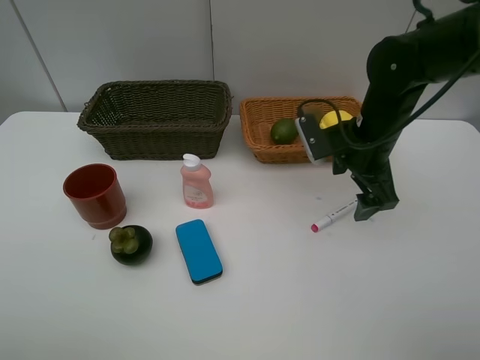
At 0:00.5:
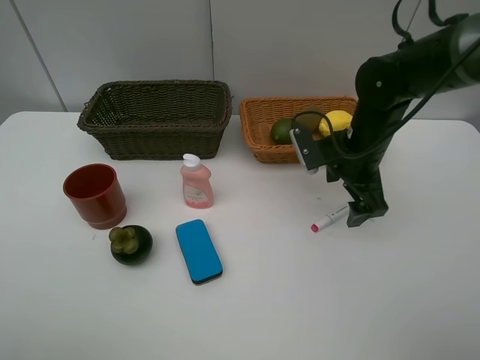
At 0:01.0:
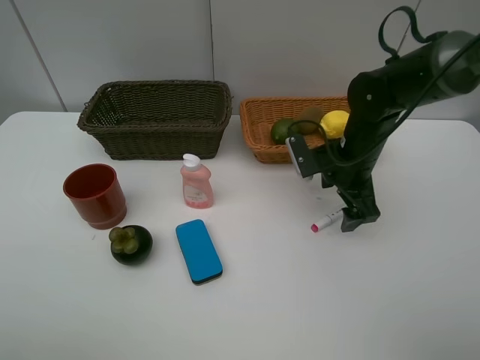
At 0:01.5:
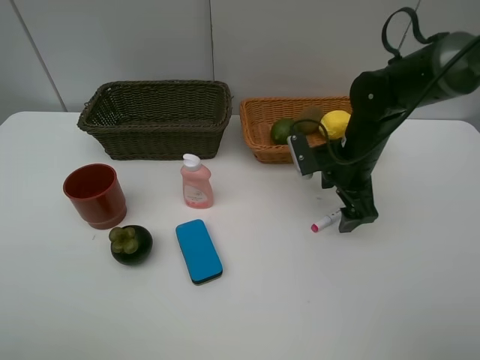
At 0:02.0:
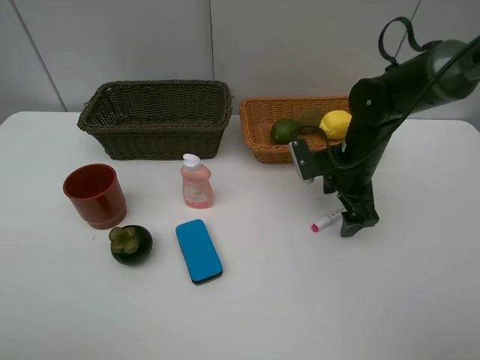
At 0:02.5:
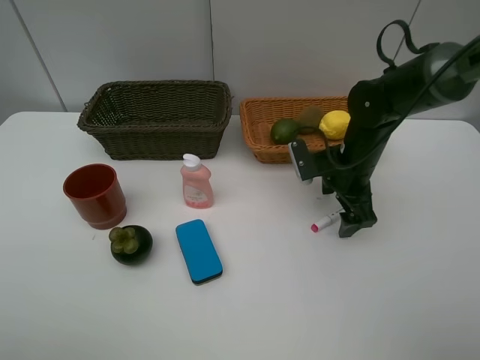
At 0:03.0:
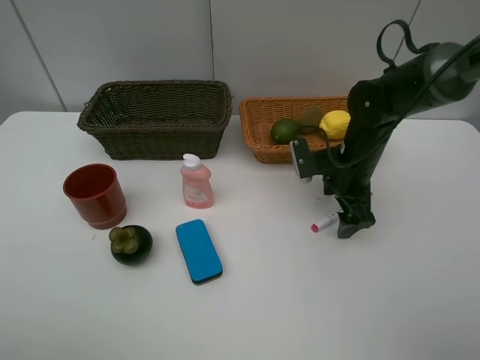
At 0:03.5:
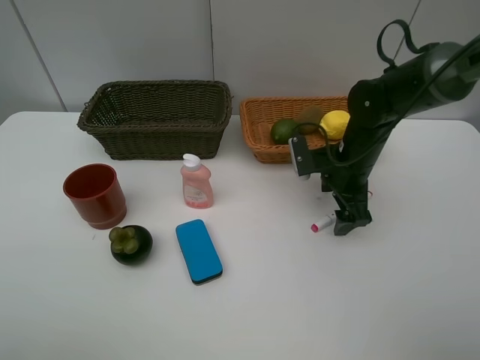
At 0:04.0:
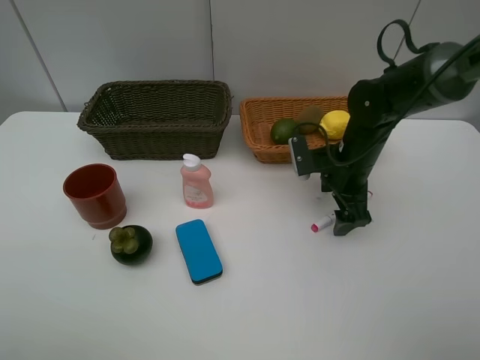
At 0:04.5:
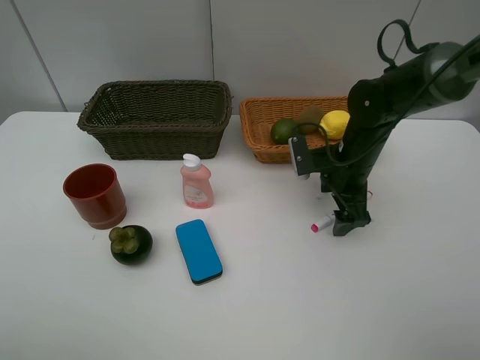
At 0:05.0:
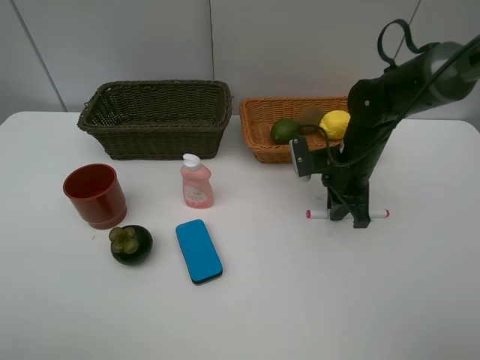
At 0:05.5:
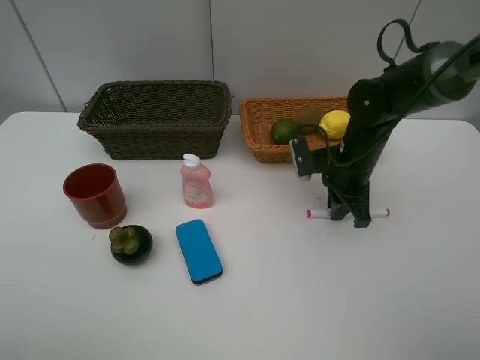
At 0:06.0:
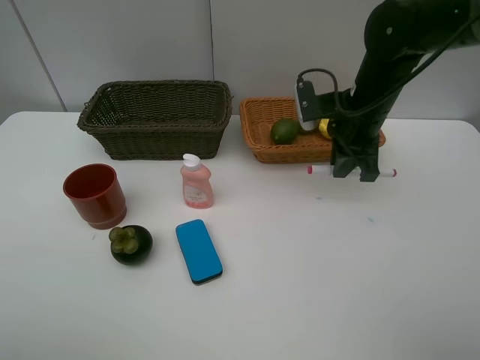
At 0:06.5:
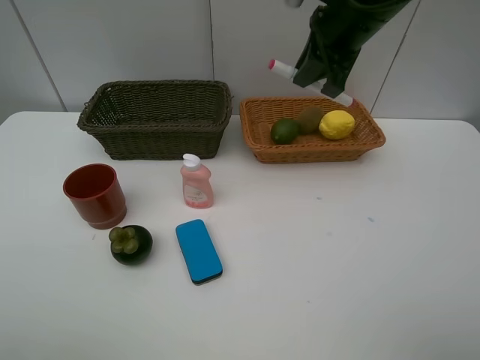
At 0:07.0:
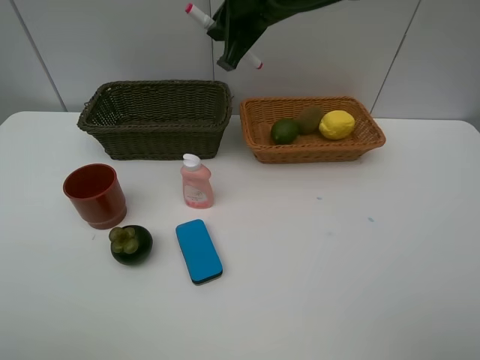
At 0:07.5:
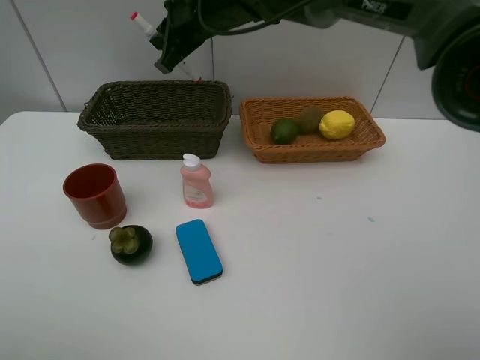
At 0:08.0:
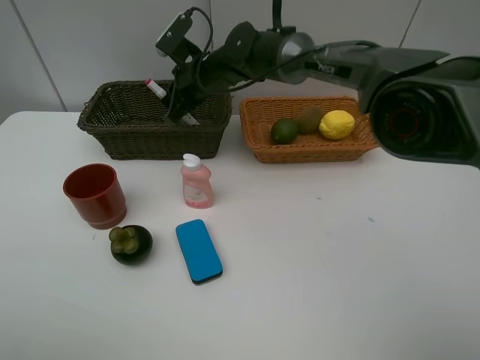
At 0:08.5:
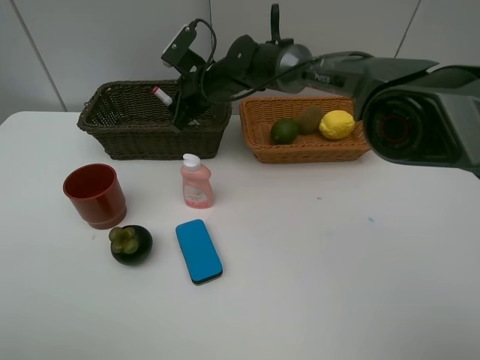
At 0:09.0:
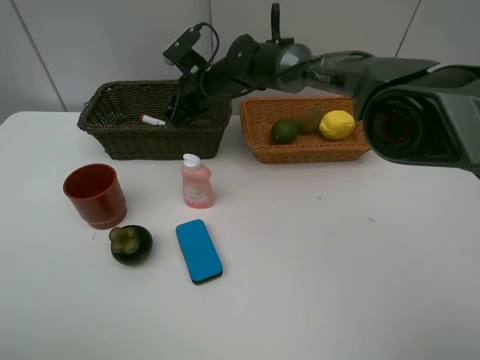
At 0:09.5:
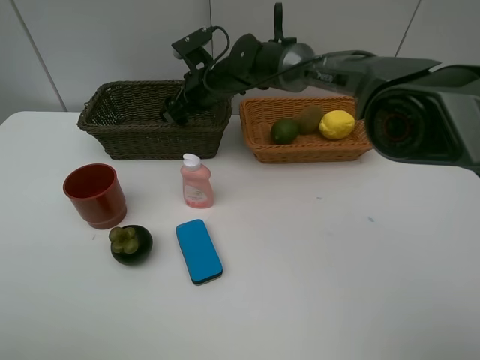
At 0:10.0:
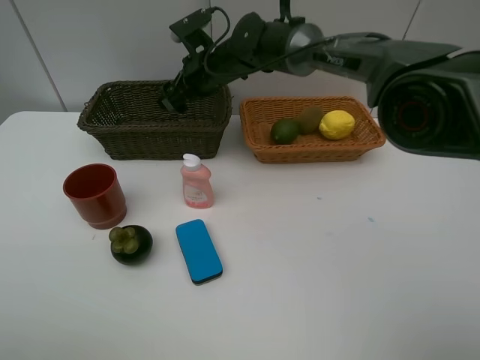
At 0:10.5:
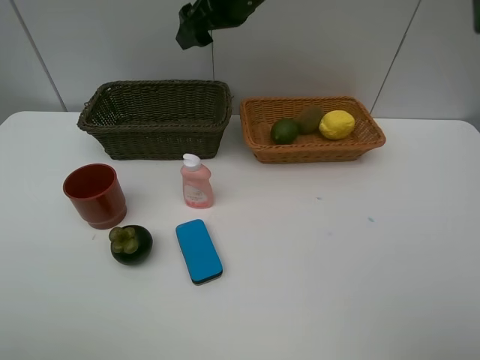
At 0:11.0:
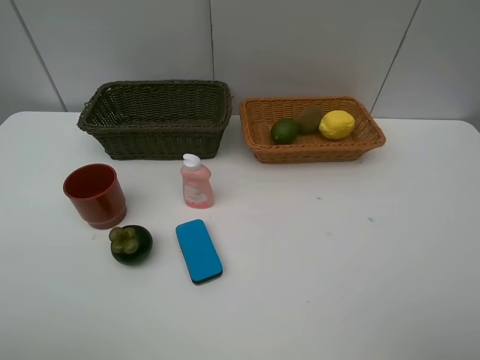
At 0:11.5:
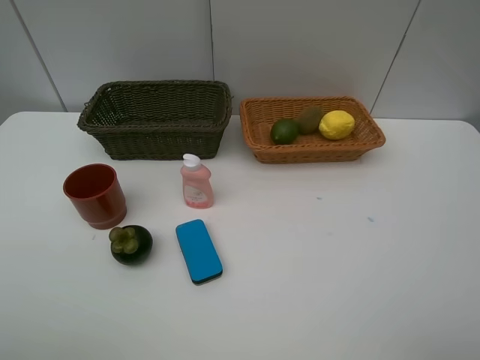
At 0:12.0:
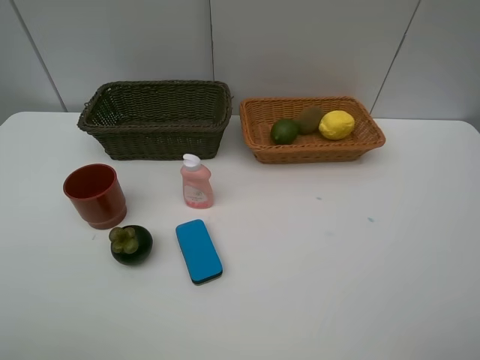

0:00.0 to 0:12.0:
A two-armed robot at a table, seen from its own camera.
Task of the whole recording: Place multiple objects separately in different baskets.
Step, 0:00.0 to 0:05.5: Pick up the red marker with right gripper.
Step, 0:06.0 to 0:09.5: Place the red marker in the dark basket with right gripper.
0:00.0 to 0:02.0: The right gripper heads downward, covering about 5 cm.
0:02.0 to 0:04.0: The grippers make only small movements.
0:04.0 to 0:06.0: The right gripper heads upward, covering approximately 10 cm, and closes up.
0:06.0 to 0:08.0: The right gripper shifts approximately 25 cm to the left and forward.
0:08.0 to 0:10.0: The right gripper opens up.
0:10.0 to 0:12.0: The right gripper moves backward, to the right and upward, approximately 50 cm.

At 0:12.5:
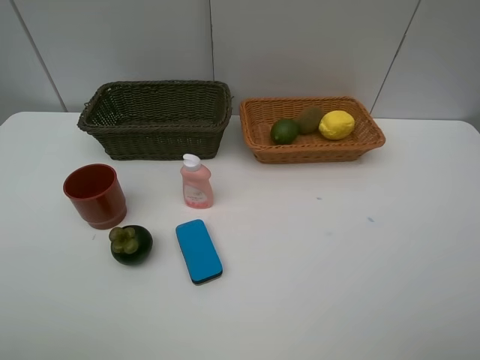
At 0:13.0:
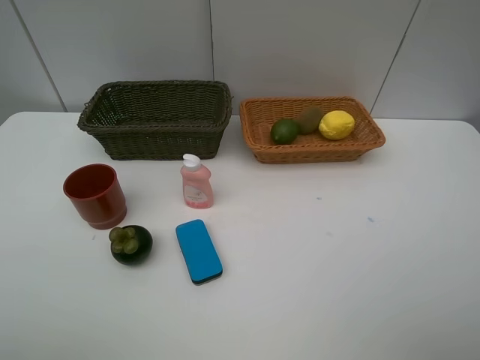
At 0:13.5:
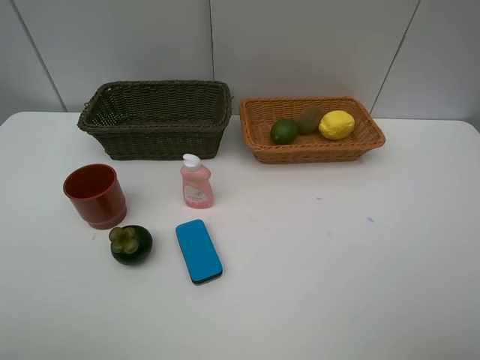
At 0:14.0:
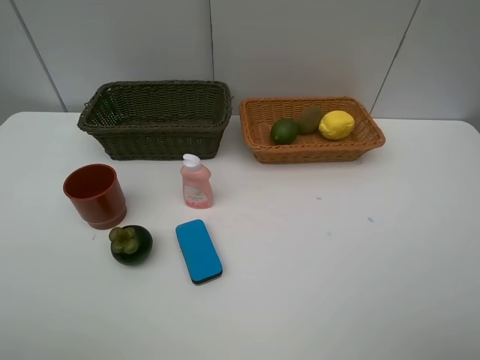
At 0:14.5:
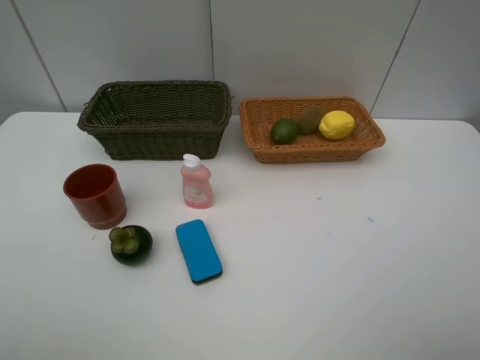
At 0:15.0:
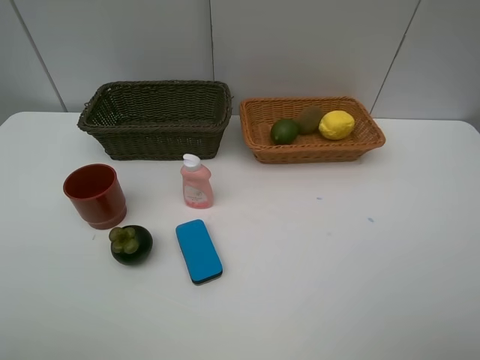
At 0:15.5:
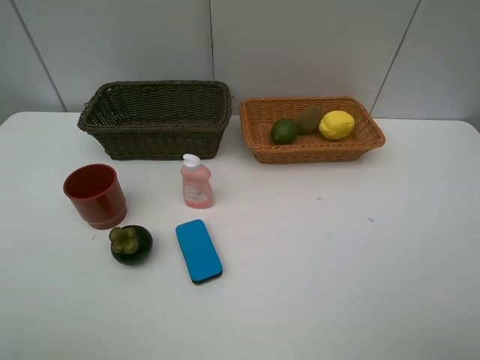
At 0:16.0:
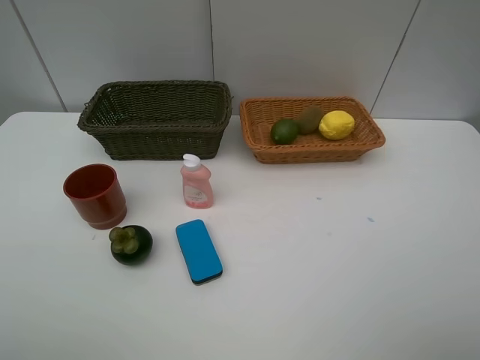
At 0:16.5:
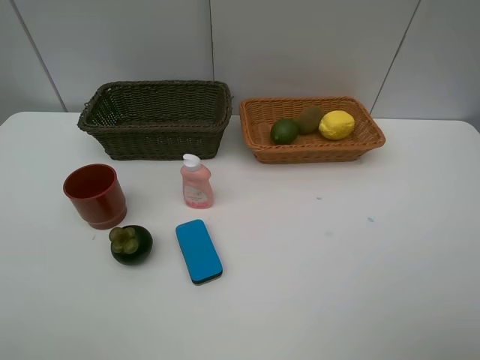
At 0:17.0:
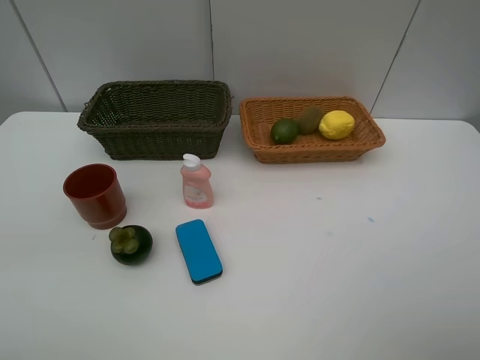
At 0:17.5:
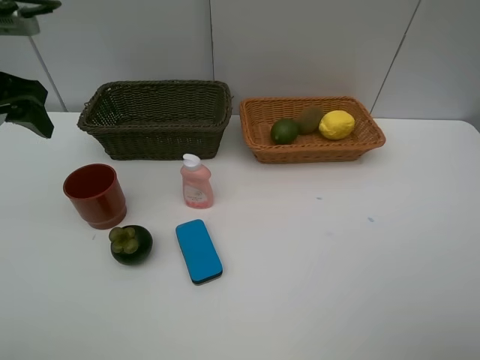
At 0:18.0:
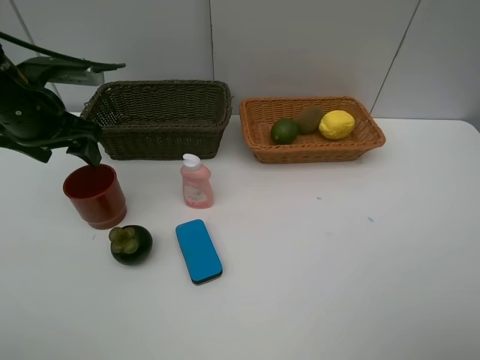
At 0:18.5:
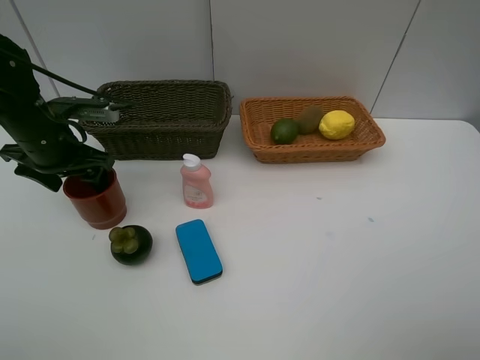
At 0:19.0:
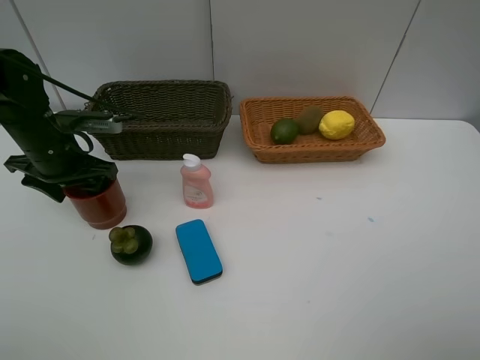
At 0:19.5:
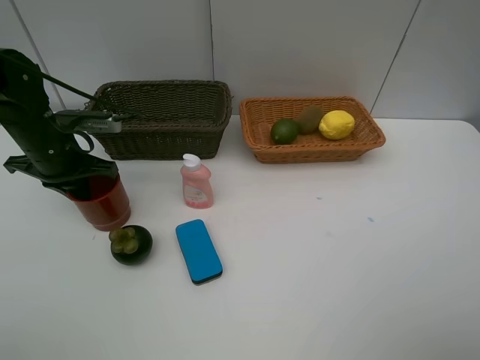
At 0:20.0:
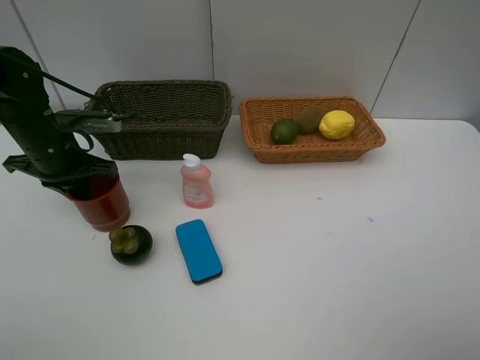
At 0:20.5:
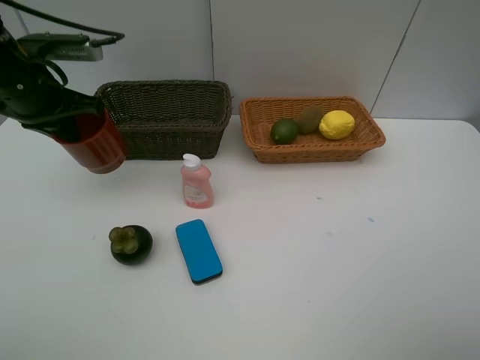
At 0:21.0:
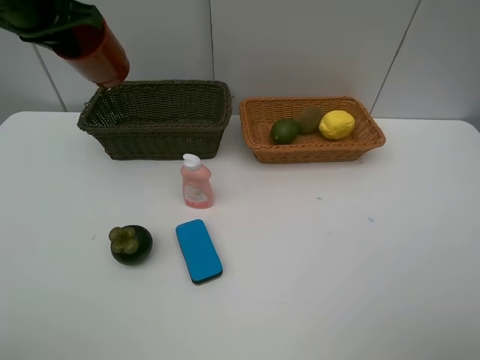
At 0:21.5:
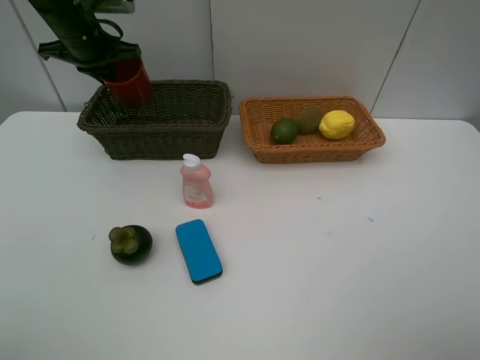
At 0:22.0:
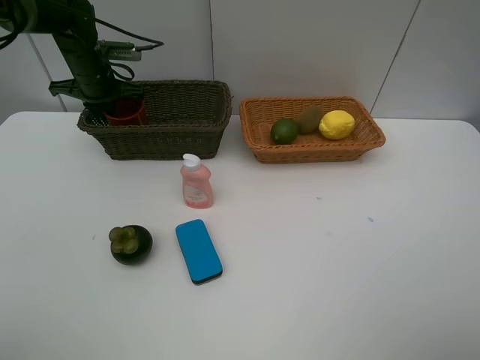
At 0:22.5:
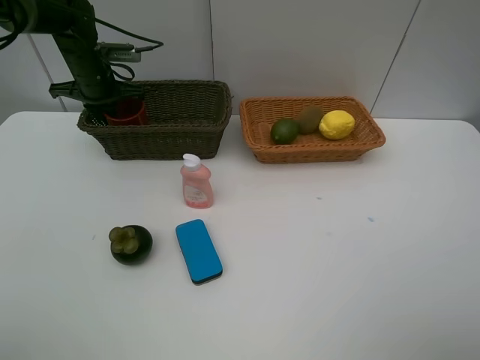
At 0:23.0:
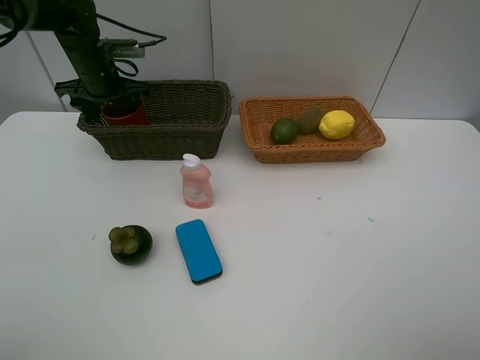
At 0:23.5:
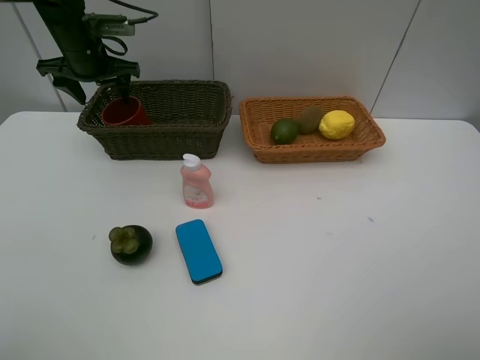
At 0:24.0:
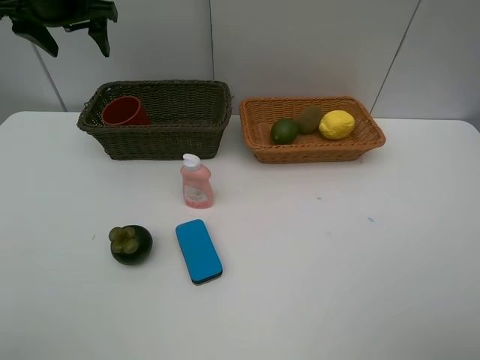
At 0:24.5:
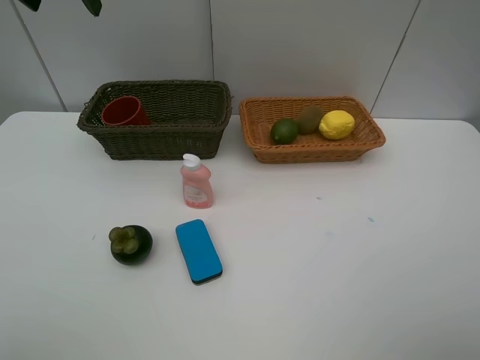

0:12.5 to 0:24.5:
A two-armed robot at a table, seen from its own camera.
Task of the whole recording: Place multiple objects separately in different baskets.
Step, 0:12.5 to 0:20.0: Pick up the dark brown cup with left gripper.
Step, 0:20.5 to 0:23.5: Place the dark brown cup in the dark basket with left gripper.
0:16.5 to 0:18.5: The left gripper is displaced forward and downward by some 35 cm.
0:18.5 to 0:20.5: The left gripper moves upward, roughly 10 cm, and closes its fingers.
0:20.5 to 0:22.5: The left gripper moves forward and downward, approximately 20 cm.
0:22.5 to 0:24.5: The left gripper goes approximately 25 cm upward and backward, and opens.

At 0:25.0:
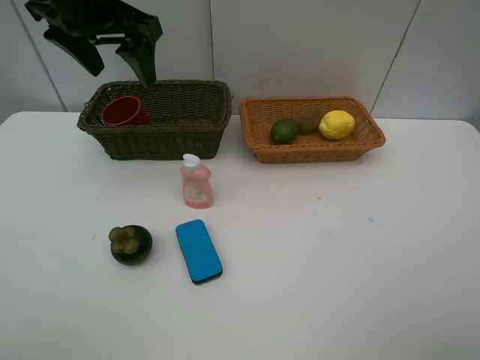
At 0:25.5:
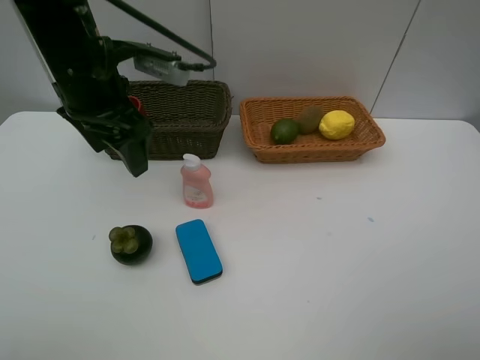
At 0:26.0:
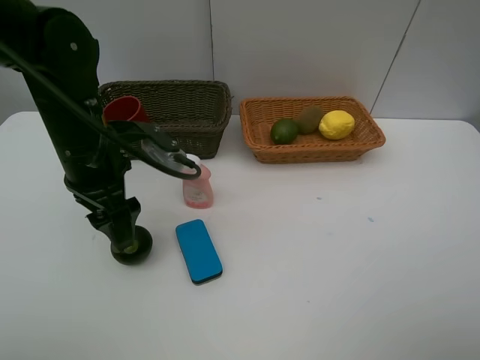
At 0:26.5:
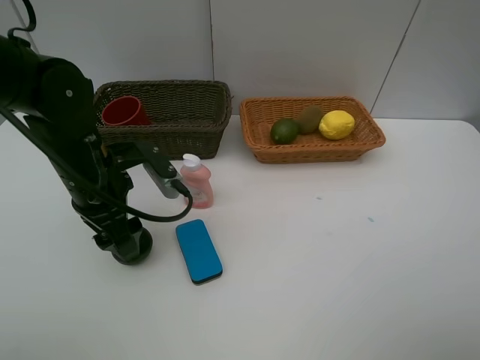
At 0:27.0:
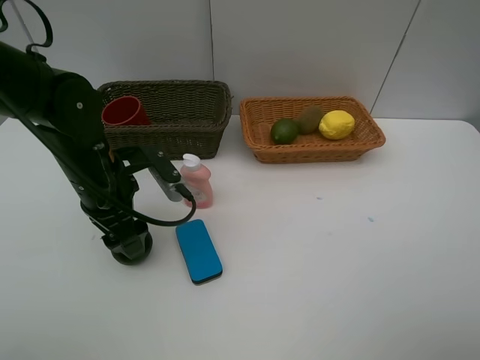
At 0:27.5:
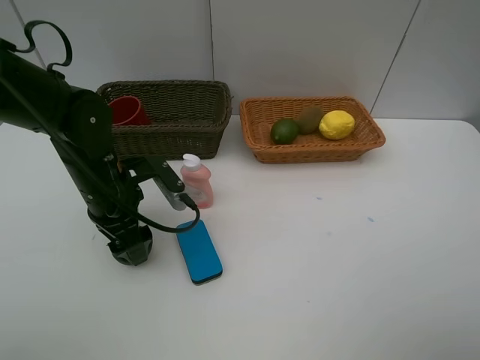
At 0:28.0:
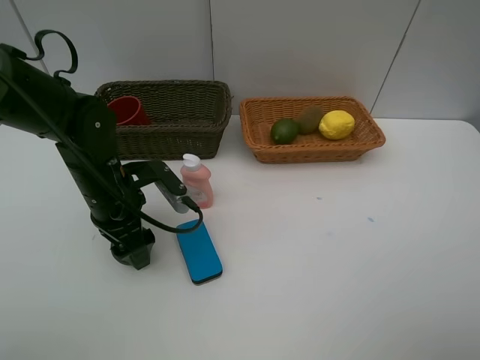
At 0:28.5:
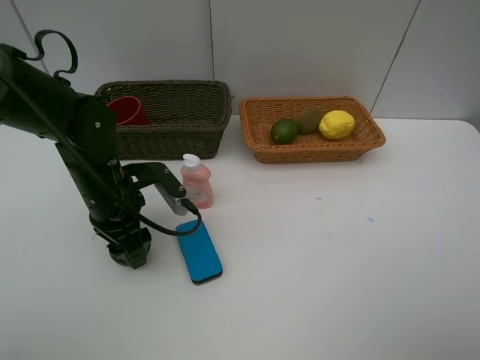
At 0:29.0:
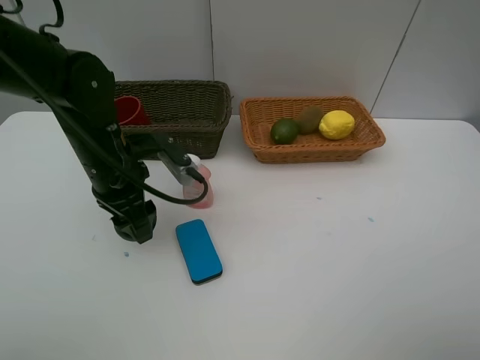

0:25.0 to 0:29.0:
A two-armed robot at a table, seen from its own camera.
Task of the whole recording: Place multiple objects separately in different baskets.
Step, 0:25.0 to 0:29.0: Pick up the mangosteen with left gripper.
0:25.0 to 0:27.0: The left gripper moves downward and backward, roughly 20 cm.
0:27.0 to 0:29.0: The grippers move only a little.
